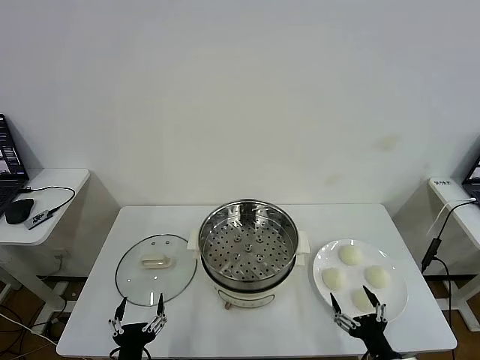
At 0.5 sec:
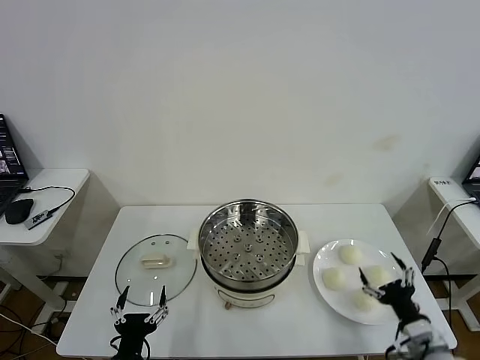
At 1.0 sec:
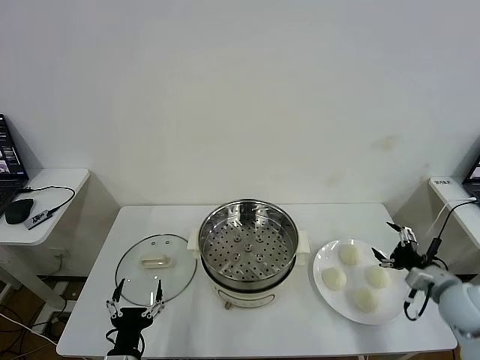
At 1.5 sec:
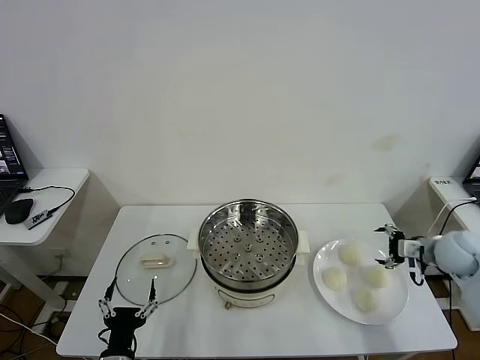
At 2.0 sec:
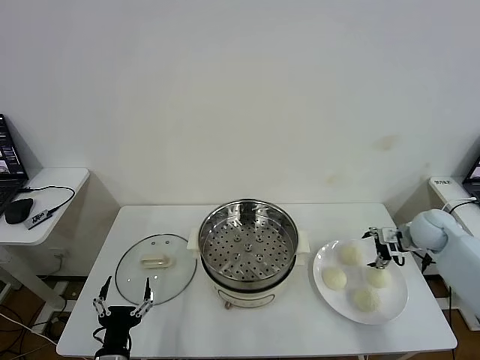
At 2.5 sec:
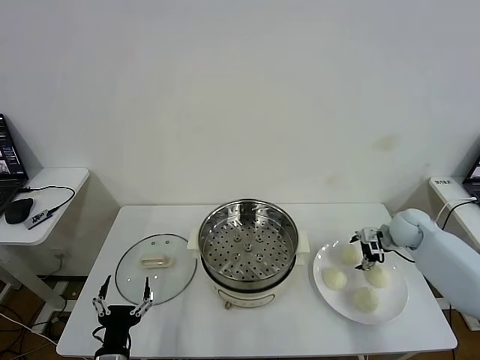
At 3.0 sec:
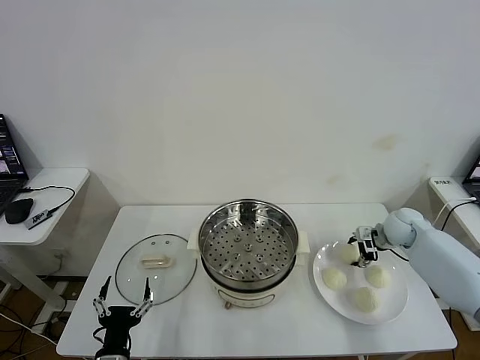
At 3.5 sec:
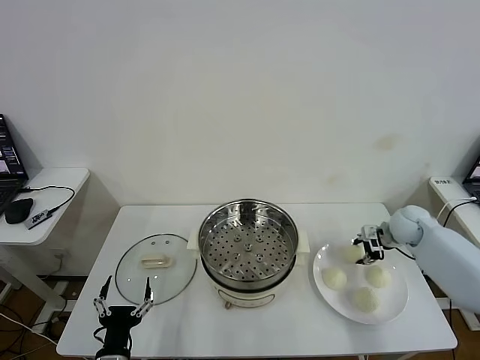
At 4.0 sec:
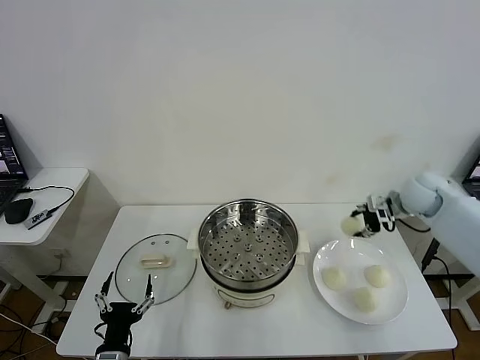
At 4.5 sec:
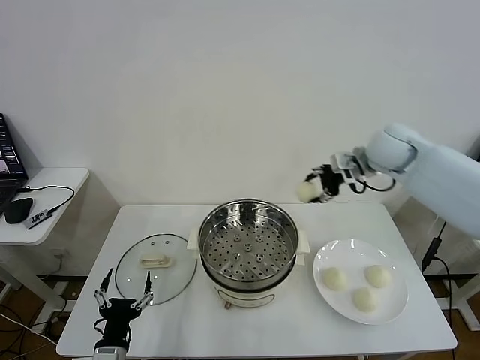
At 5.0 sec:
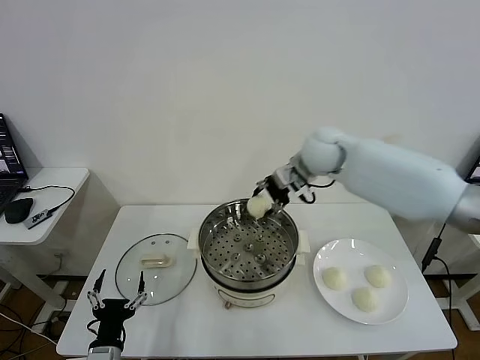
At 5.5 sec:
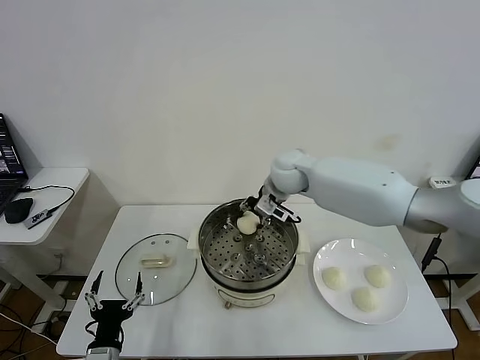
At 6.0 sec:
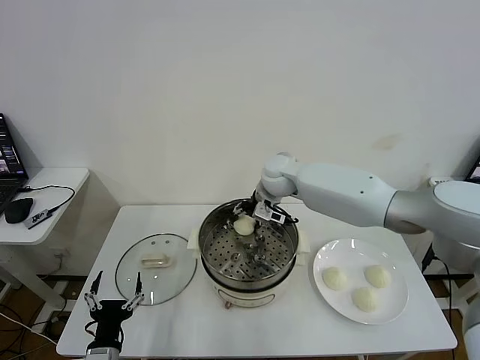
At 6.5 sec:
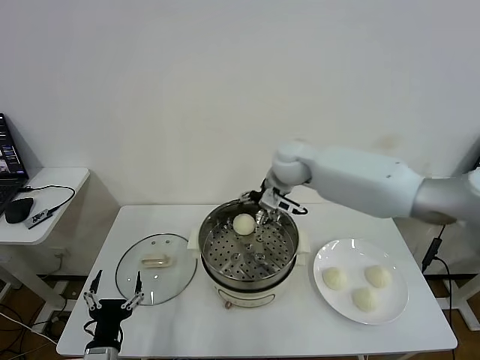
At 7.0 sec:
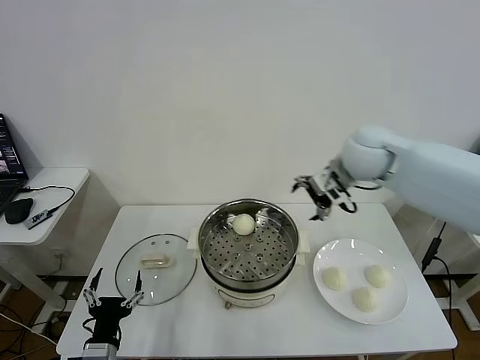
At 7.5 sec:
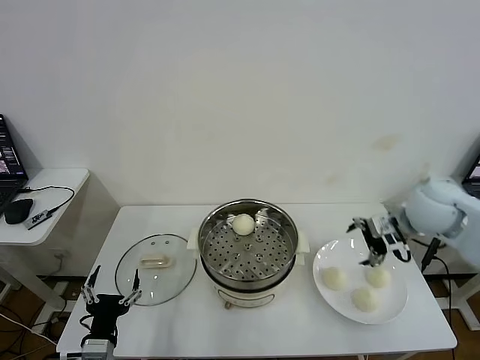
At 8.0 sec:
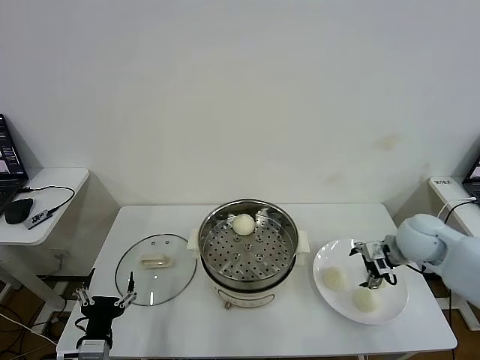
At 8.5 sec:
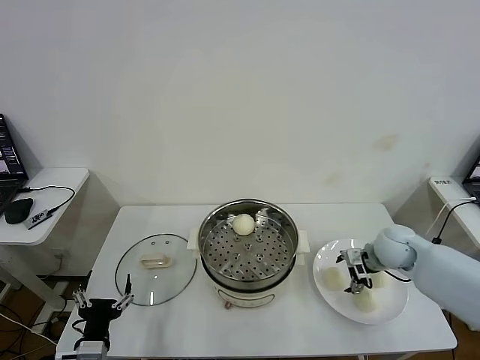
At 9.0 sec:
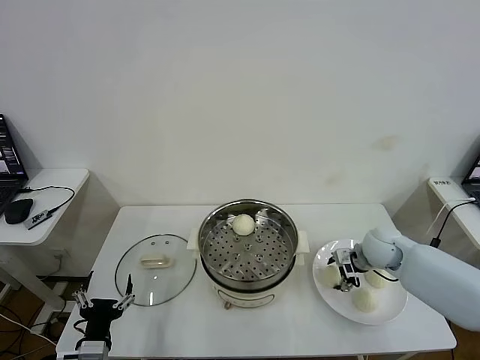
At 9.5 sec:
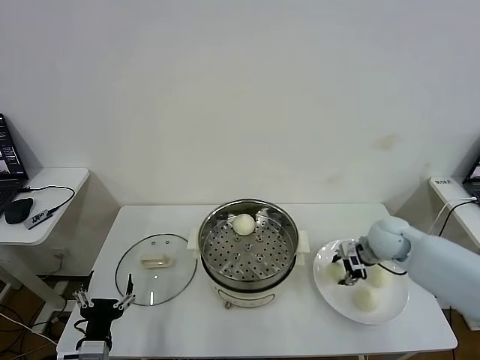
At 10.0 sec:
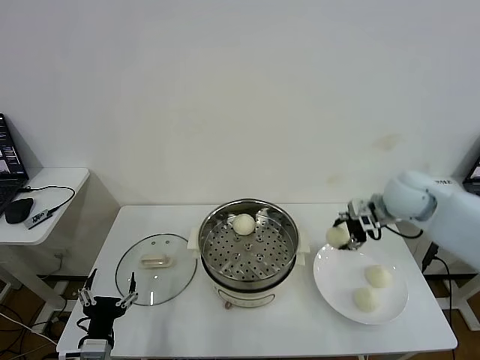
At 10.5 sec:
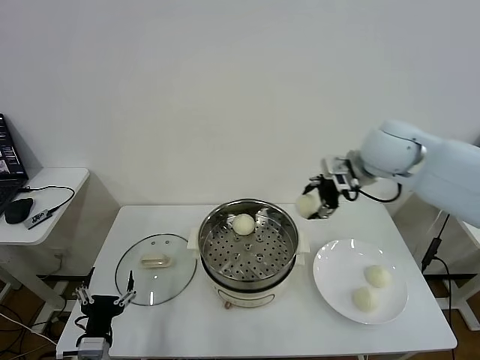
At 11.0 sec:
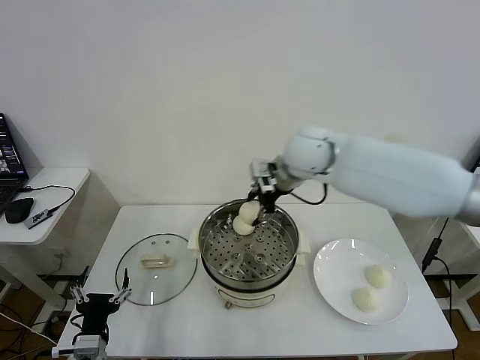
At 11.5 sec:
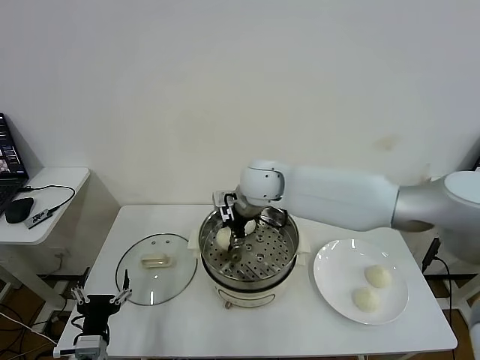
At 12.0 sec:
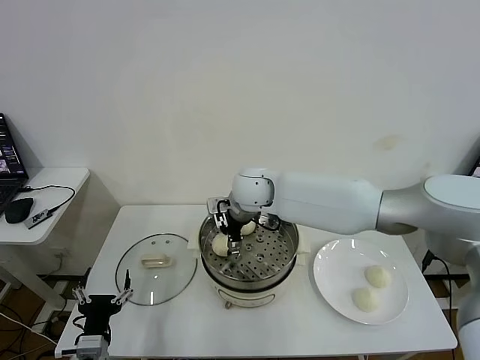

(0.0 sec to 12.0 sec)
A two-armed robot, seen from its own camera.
Task of the whole recording: take steamed baozi put them in steamer then cover it.
Step, 0.0 sec - 3.0 sec: Grasp the baozi in the plate with right gripper.
Step, 3.5 sec - 6.0 sec: Place the baozi on the steamer with right gripper.
Step, 6.5 sec - 9.0 sec: Grasp the baozi in the plate with right gripper.
Step, 9.5 sec - 12.0 sec: Place the baozi on the steamer with right gripper.
2.0 sec - 4.0 sec: The right gripper is displaced upward by approximately 10 cm, and closes its fingers.
4.0 sec - 6.0 sec: The right gripper heads to the left, covering some 30 cm.
6.0 sec - 8.0 sec: The right gripper travels to the right and backward by some 30 cm, and opens up.
8.0 sec - 10.0 sec: The right gripper goes about 10 cm upward and forward, and closes its fingers.
10.0 sec - 12.0 sec: The right gripper shifts about 30 cm to the left, and opens.

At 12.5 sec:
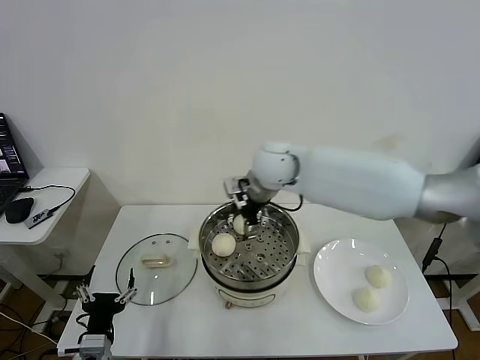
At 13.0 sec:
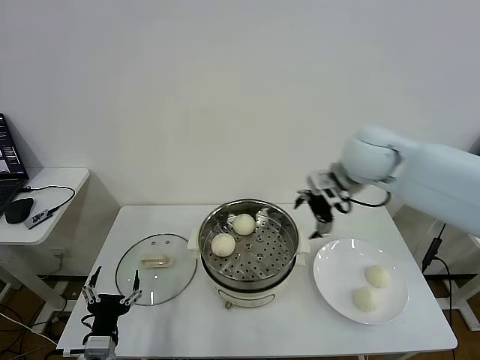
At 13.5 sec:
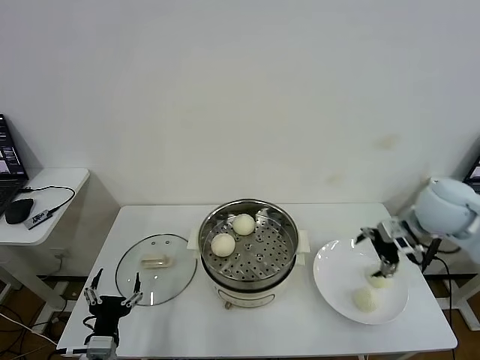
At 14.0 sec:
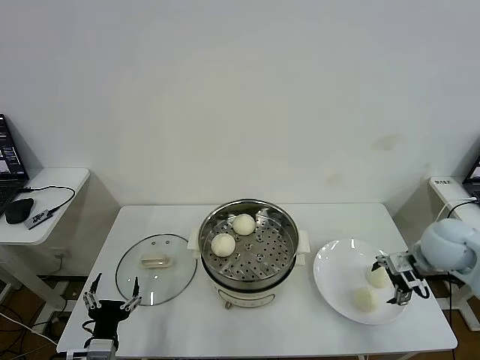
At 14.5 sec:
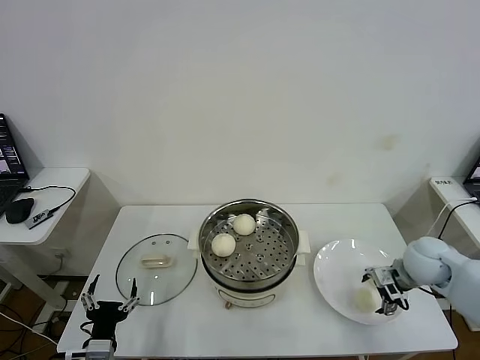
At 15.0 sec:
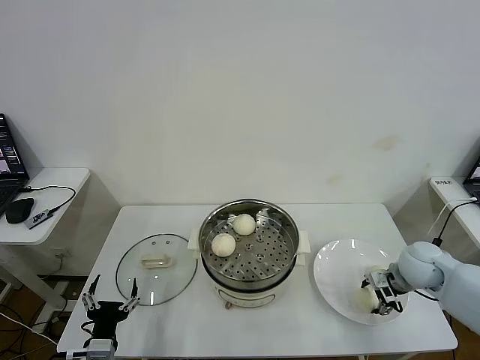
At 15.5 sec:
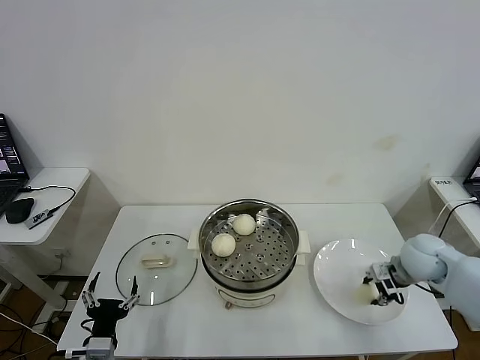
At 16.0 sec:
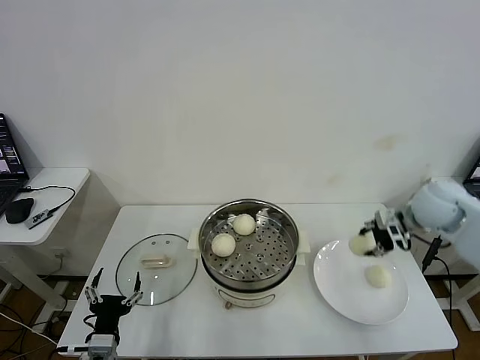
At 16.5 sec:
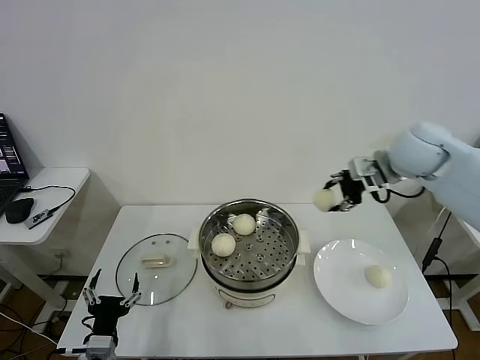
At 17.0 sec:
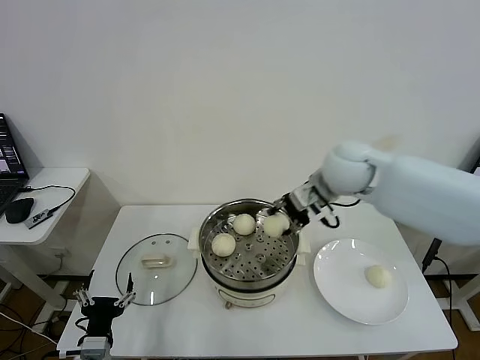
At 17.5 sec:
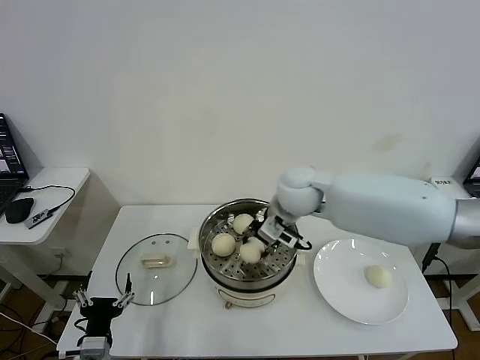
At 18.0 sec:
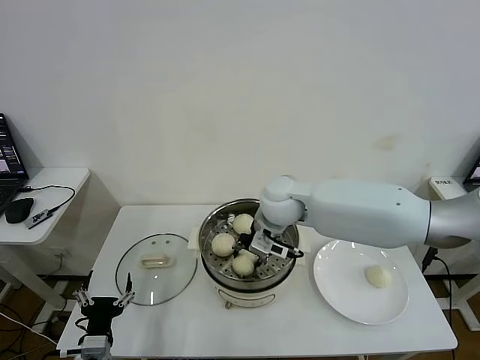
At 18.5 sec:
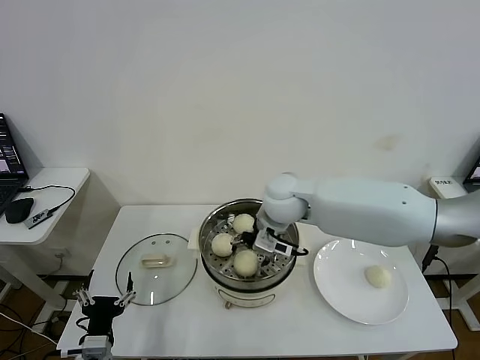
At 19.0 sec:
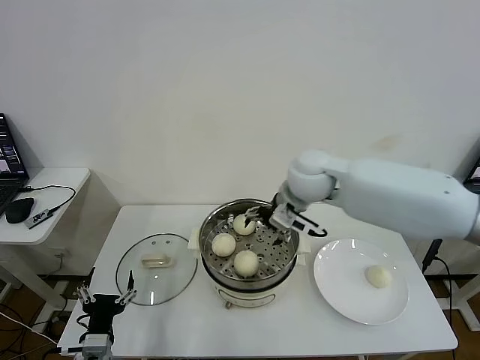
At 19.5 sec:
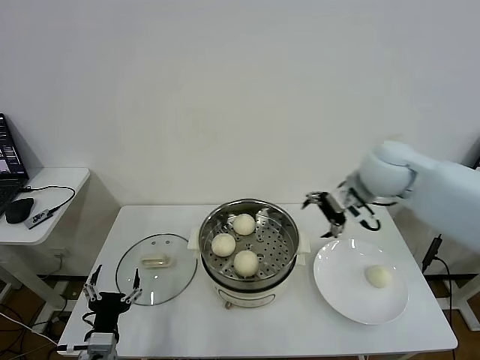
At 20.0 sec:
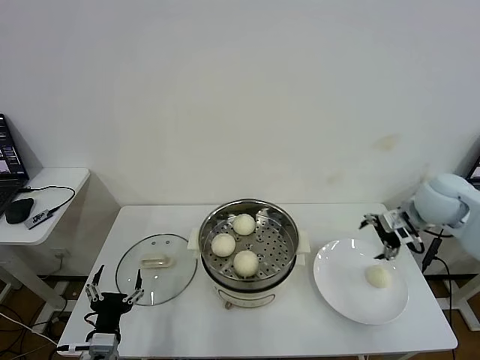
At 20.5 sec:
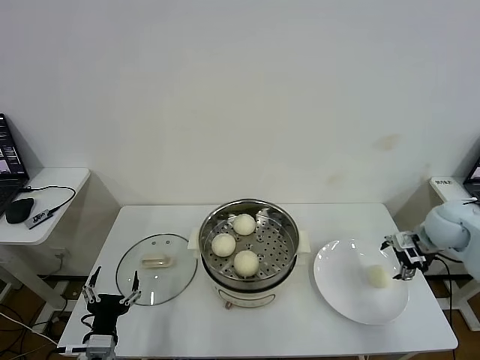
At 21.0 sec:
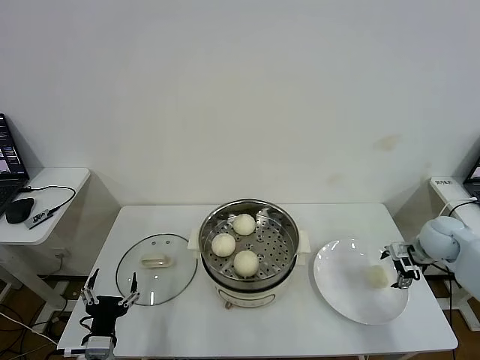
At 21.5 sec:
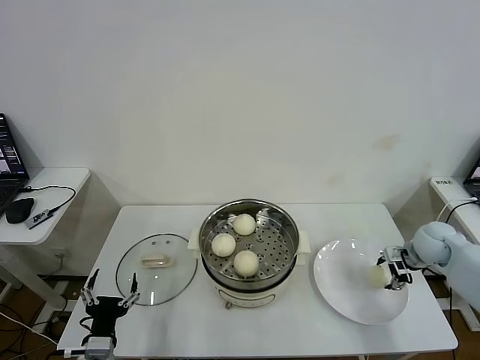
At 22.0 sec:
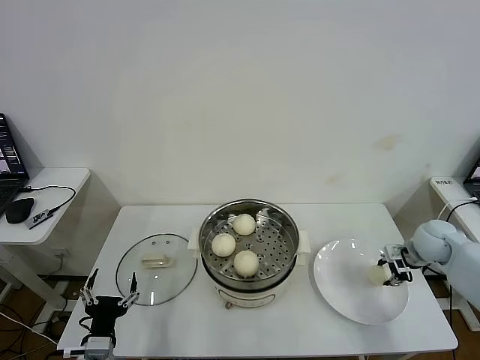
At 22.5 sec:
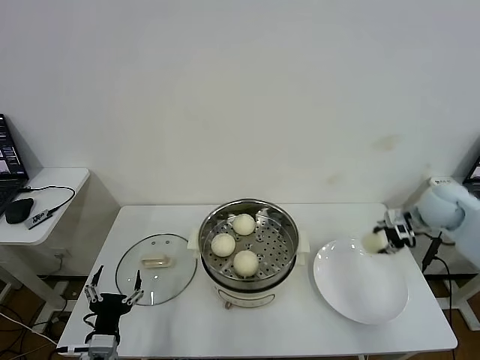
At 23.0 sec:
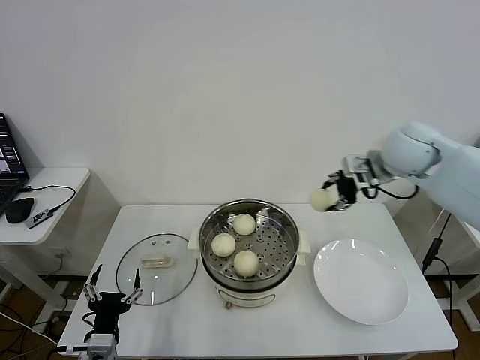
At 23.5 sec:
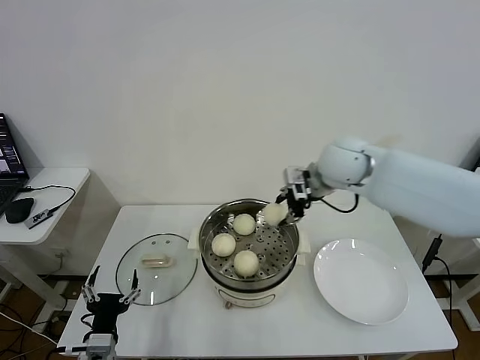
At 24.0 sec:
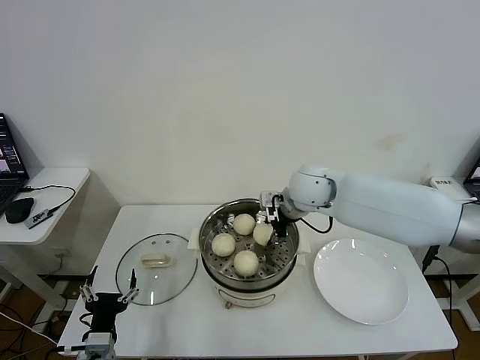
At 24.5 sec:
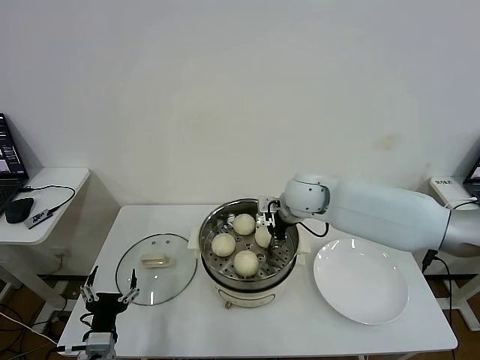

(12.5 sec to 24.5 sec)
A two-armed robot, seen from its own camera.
Task of the whole recording: take steamed baozi put them in steamer then cover it.
Step, 12.5 sec - 15.0 sec: Grasp the baozi in the plate with right gripper.
Step, 15.5 sec - 18.5 sec: Place the baozi on the steamer with right gripper.
Step, 19.0 sec - 21.5 sec: Grasp the baozi in the plate with right gripper.
12.5 sec - 14.5 sec: The right gripper shifts roughly 35 cm to the right and downward.
14.5 sec - 16.5 sec: The right gripper is displaced upward and forward by about 25 cm, and closes up.
16.5 sec - 18.5 sec: The right gripper goes about 25 cm to the left and downward, and opens up.
18.5 sec - 20.5 sec: The right gripper is displaced to the right by roughly 35 cm.
20.5 sec - 22.5 sec: The right gripper reaches roughly 5 cm downward, then returns, and closes up.
22.5 sec - 24.5 sec: The right gripper is displaced to the left by some 30 cm.

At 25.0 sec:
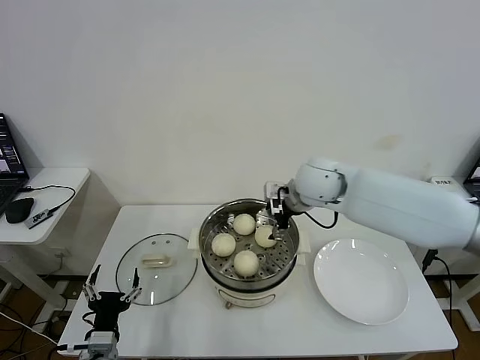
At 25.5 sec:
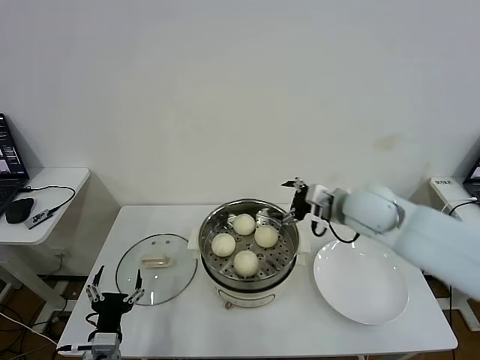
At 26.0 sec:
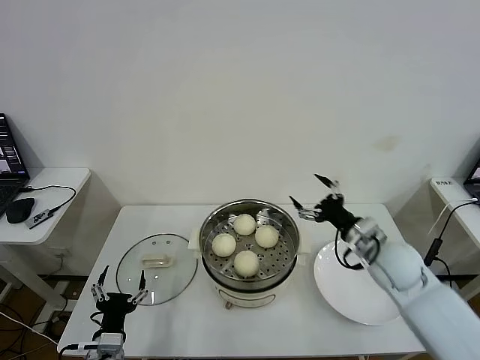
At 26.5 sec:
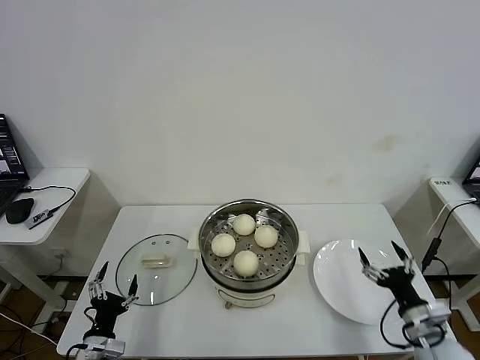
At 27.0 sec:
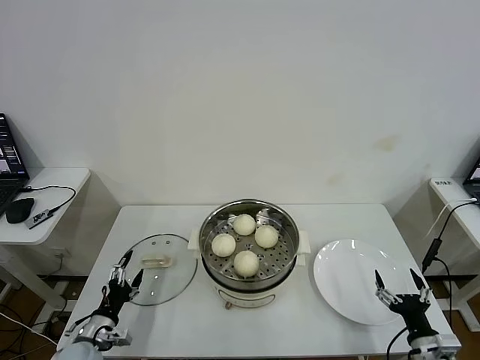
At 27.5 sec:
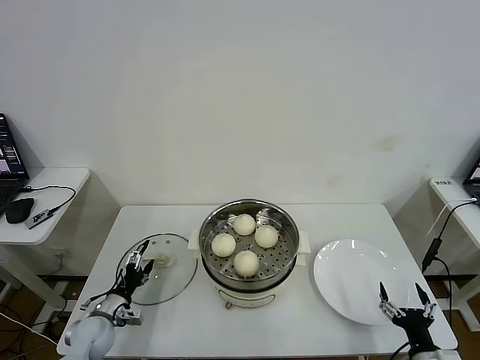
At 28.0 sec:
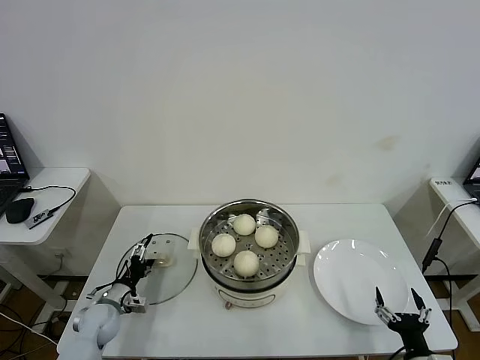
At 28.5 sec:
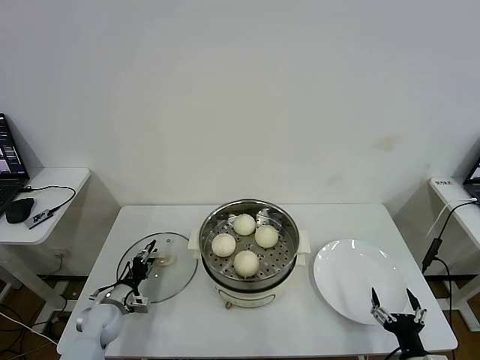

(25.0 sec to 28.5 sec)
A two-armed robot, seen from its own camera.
Task of the whole recording: take steamed baozi put them in steamer then cover it.
25.0 sec - 27.0 sec: The right gripper moves backward, downward and to the right, some 50 cm; the left gripper goes roughly 10 cm to the left, downward and forward.
27.0 sec - 28.5 sec: The left gripper travels forward by about 10 cm, and closes up. The right gripper changes place by about 5 cm.
